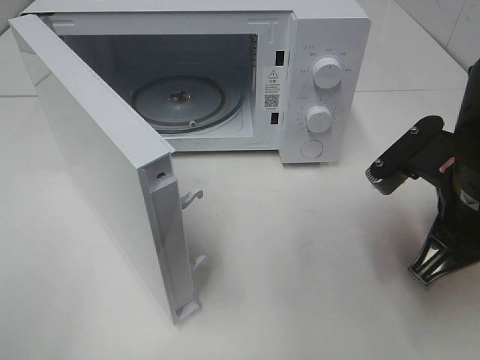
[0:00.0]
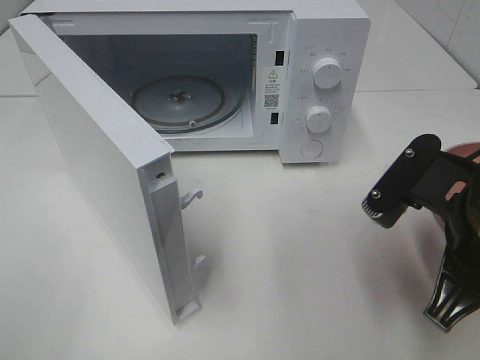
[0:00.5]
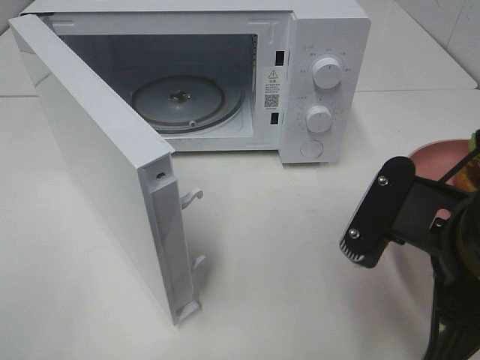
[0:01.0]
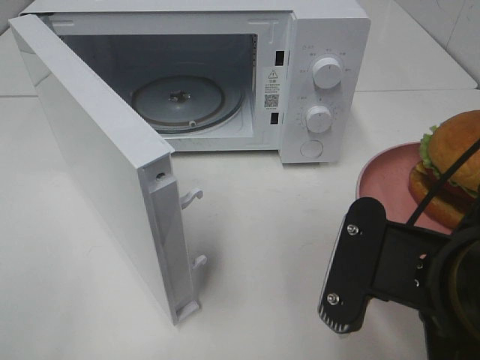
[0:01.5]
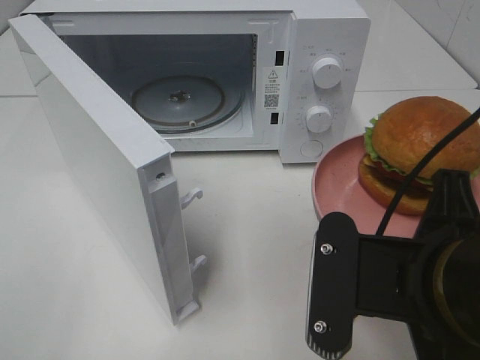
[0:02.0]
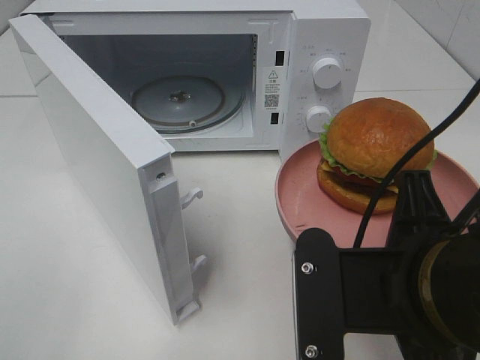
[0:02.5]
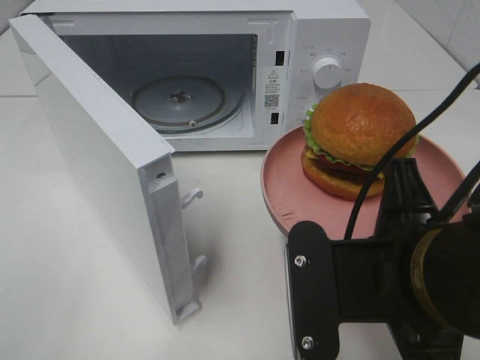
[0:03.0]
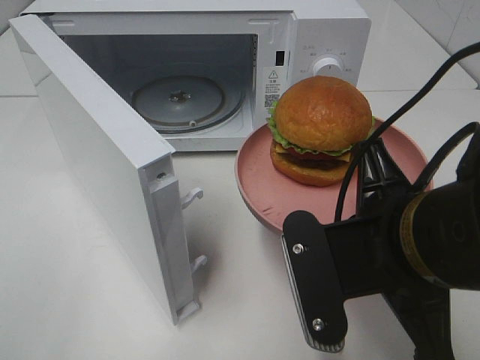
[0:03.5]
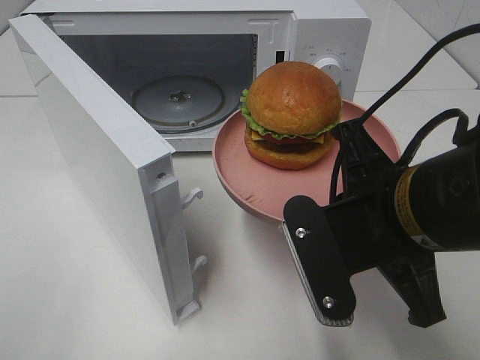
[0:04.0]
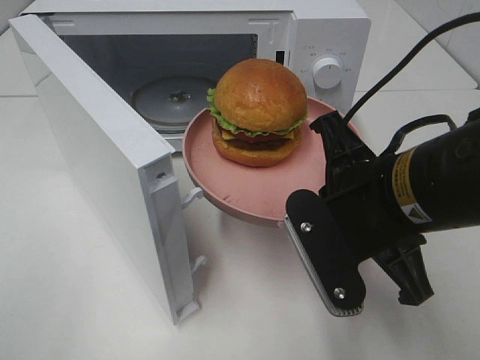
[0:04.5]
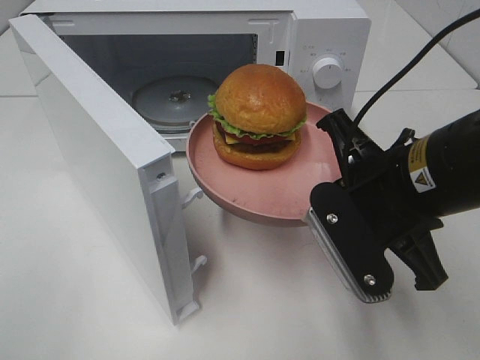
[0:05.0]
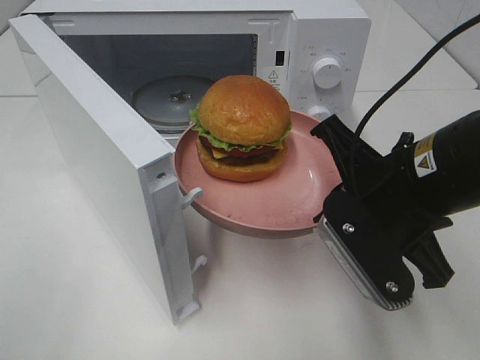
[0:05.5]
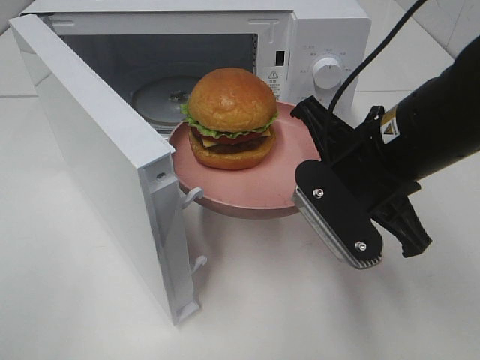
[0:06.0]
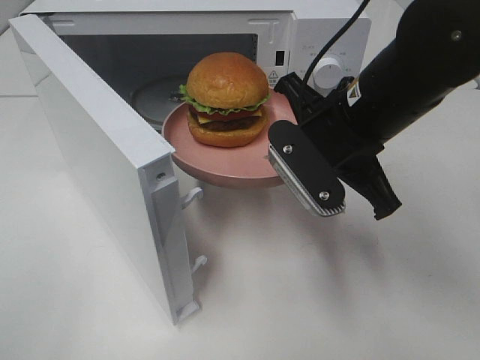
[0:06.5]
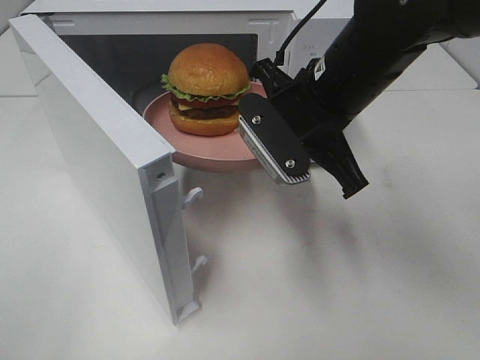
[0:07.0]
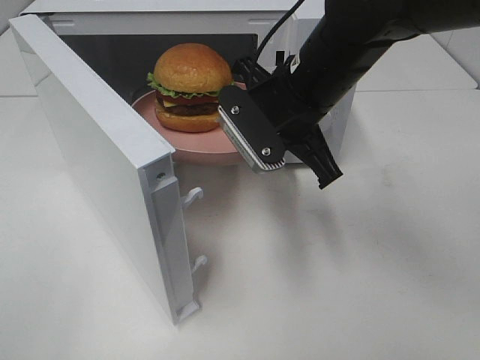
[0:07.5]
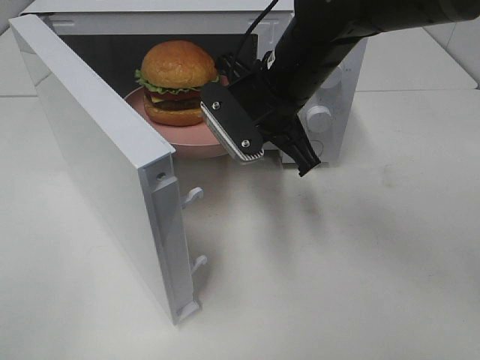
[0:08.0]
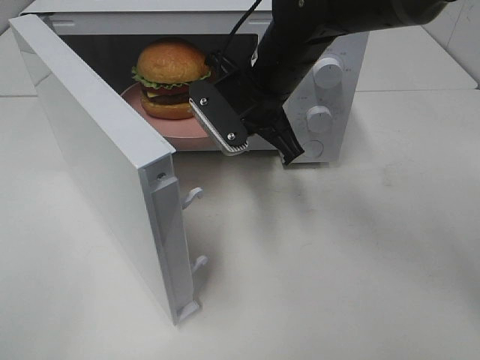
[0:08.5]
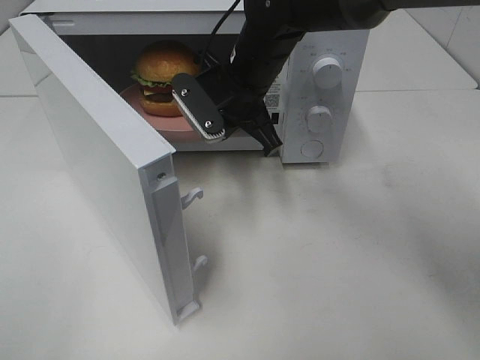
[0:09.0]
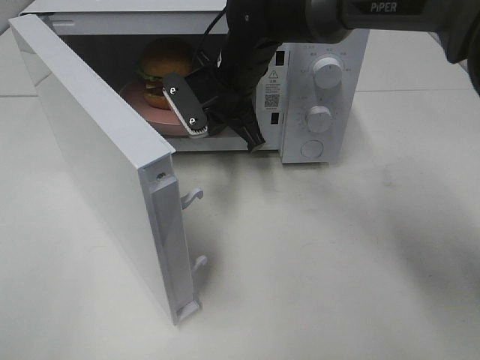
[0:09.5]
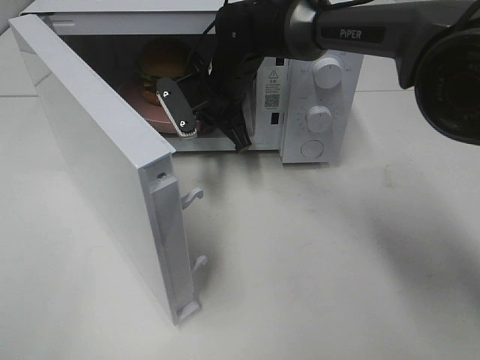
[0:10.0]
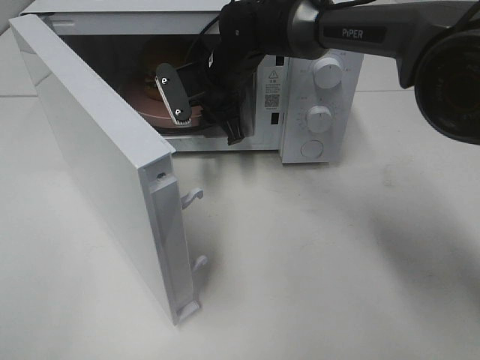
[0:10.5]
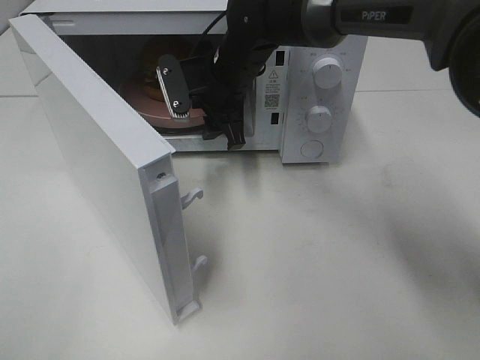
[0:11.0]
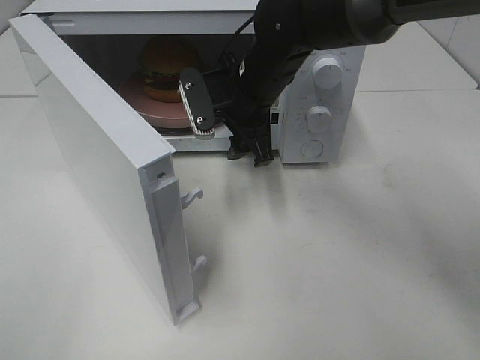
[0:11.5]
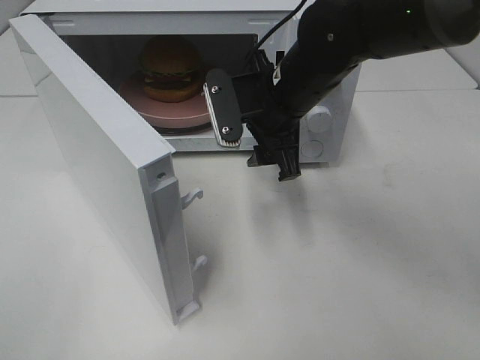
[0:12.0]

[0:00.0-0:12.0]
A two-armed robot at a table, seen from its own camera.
Task of the whole recording: Heat the burger.
Step, 0:00.0 to 0:11.0: Right hand: place the plate in the microwave.
0:00.0 to 0:02.0: The right gripper moves backward and to the left, some 10 cm.
0:02.0 to 0:04.0: The right gripper shifts approximately 5 cm forward.
0:04.0 to 0:06.0: The right gripper goes roughly 5 cm forward.
0:06.0 to 0:08.0: The right gripper heads forward and to the left, covering roughly 15 cm.
0:08.0 to 0:10.0: The right gripper goes roughly 15 cm forward, to the left and downward.
0:10.0 to 0:12.0: The right gripper heads backward and to the right, covering approximately 10 cm, and opens its fingers.

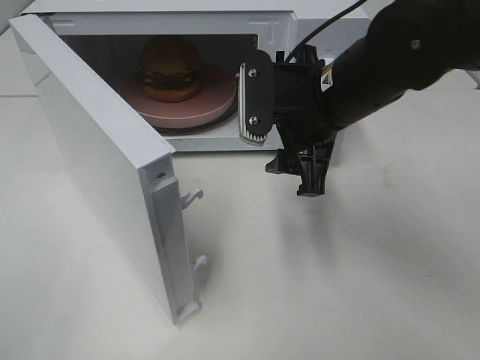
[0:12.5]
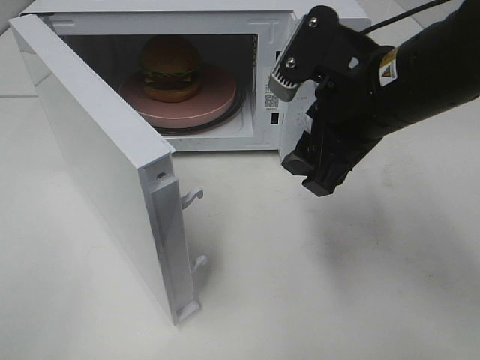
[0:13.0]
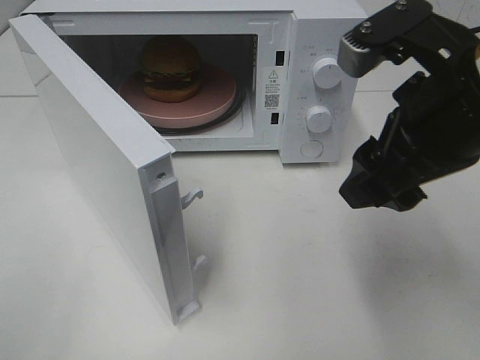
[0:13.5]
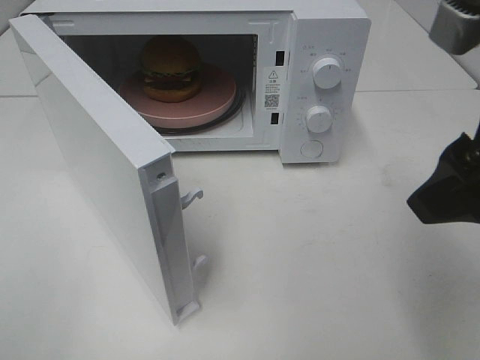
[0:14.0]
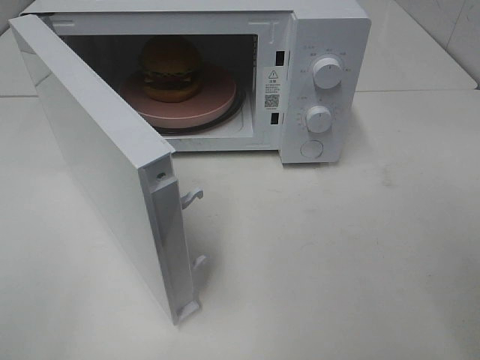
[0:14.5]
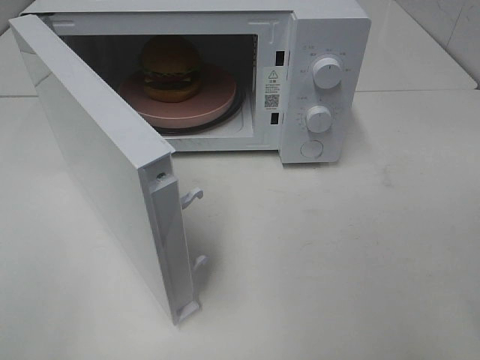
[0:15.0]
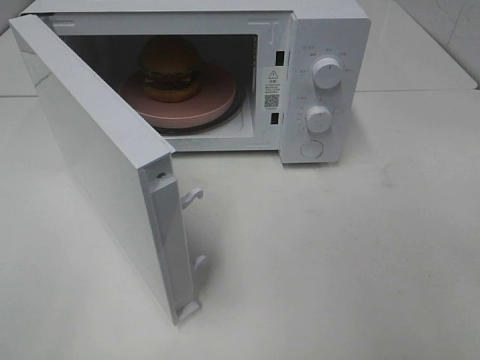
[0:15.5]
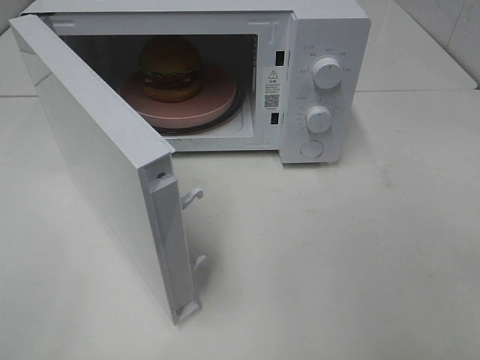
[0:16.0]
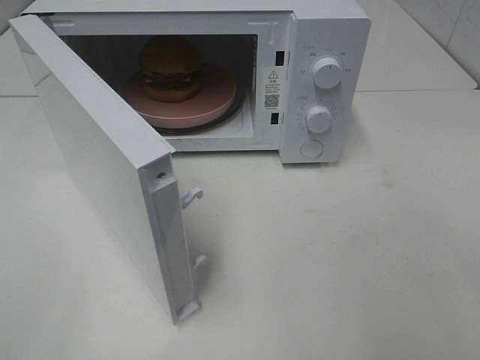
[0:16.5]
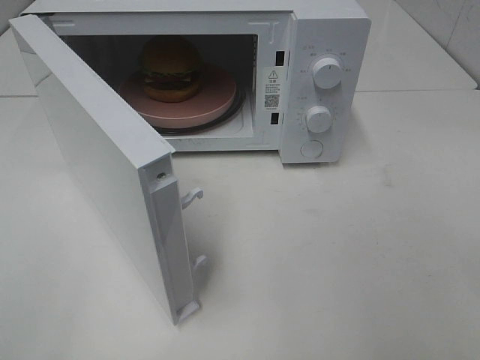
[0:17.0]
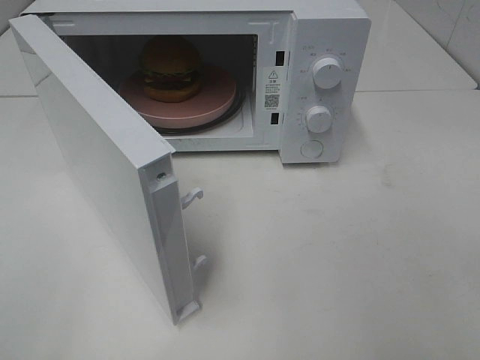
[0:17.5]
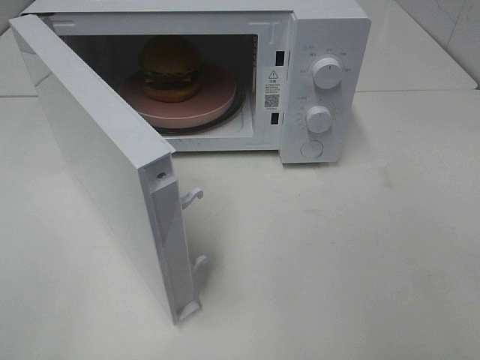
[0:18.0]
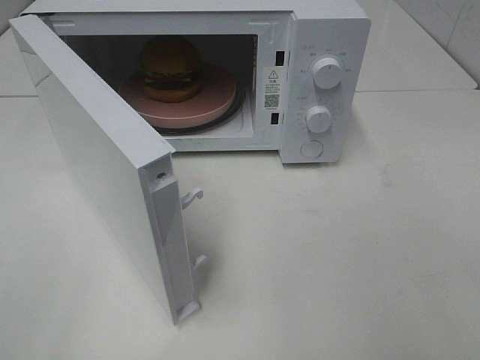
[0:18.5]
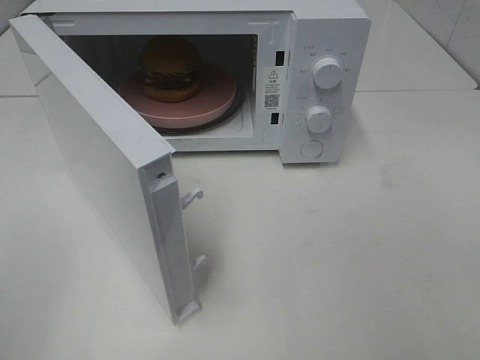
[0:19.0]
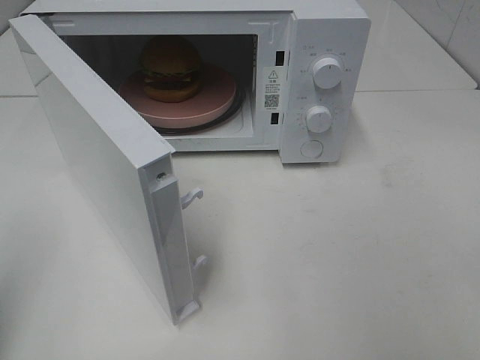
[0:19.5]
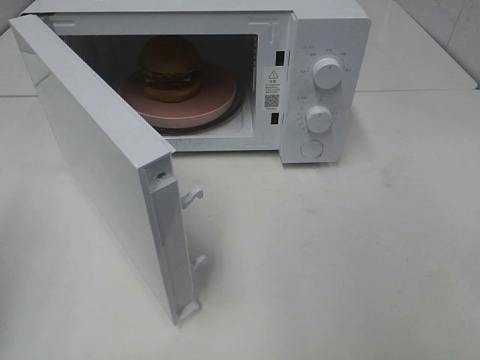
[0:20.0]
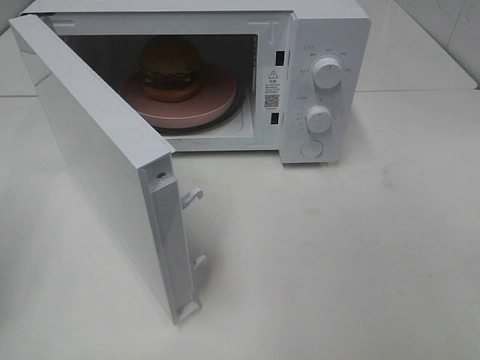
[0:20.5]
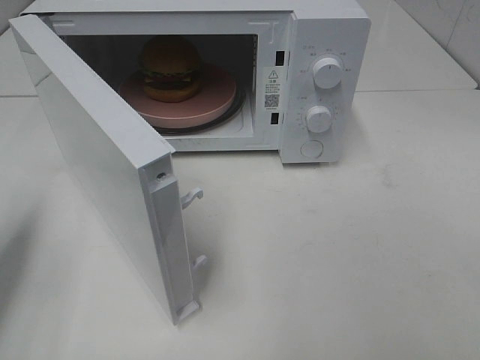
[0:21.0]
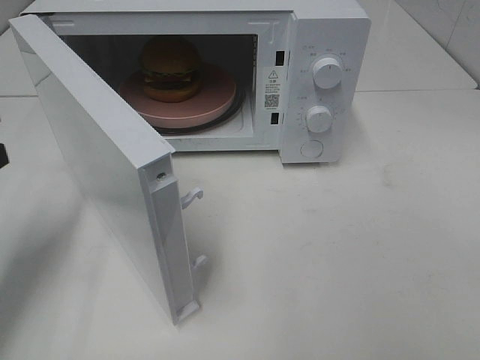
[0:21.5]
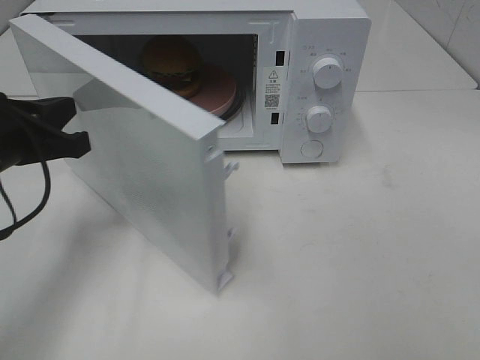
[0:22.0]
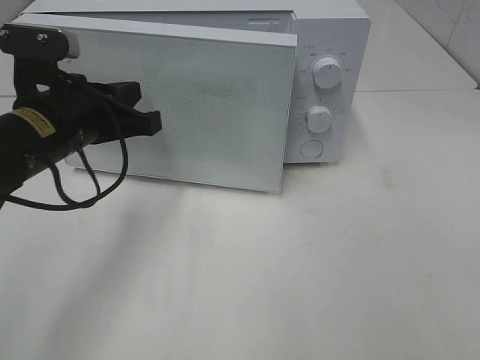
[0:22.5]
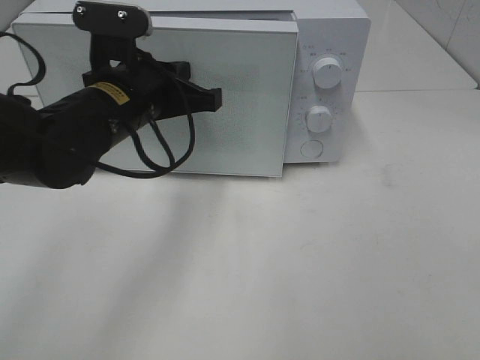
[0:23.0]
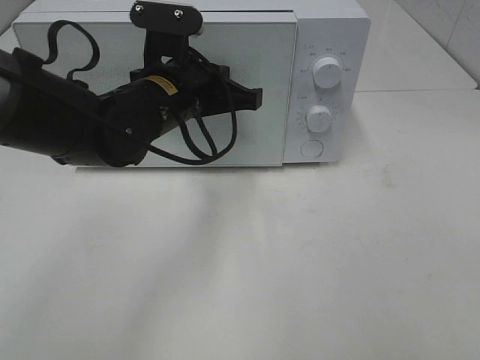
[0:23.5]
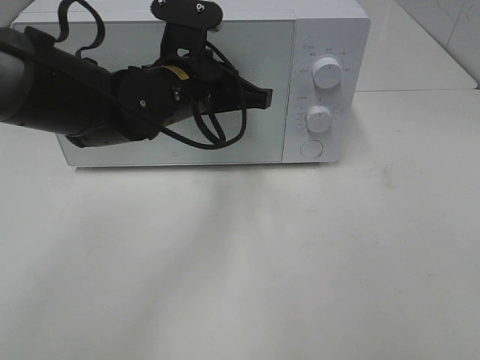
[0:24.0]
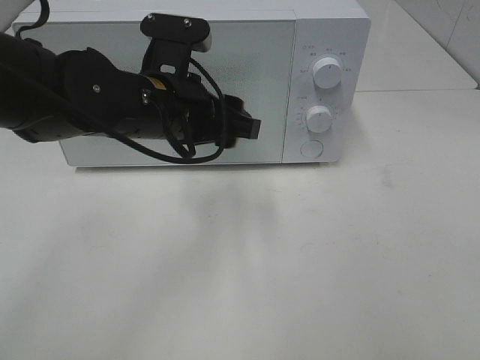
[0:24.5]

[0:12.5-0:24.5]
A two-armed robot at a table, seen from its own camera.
Task of the whole recording: Heat the burger.
Step, 0:12.5 to 0:24.5: Left hand: close the microwave door.
0:12.5 to 0:14.5: The right gripper heads backward, to the right and upward, covering some 25 cm.
0:16.5 to 0:18.5: Both grippers stay put.
0:20.5 to 0:22.5: The left gripper is displaced to the right and forward by about 20 cm.
0:22.5 to 0:24.5: The left gripper moves to the right, about 10 cm, and opens its fingers.

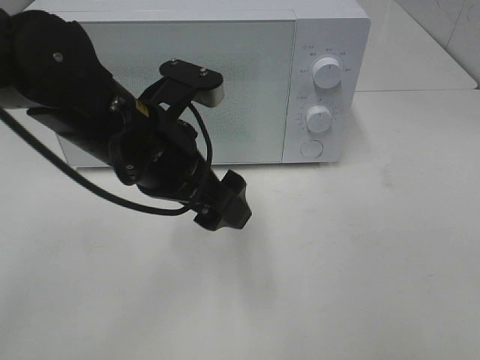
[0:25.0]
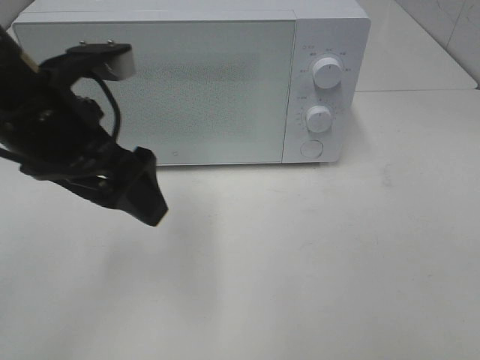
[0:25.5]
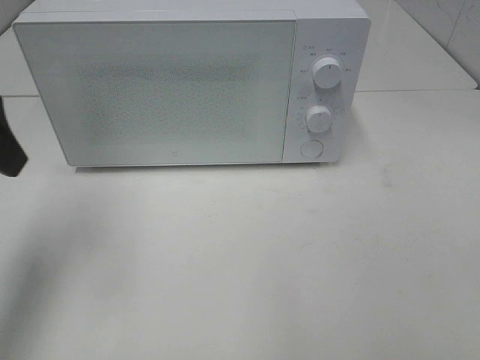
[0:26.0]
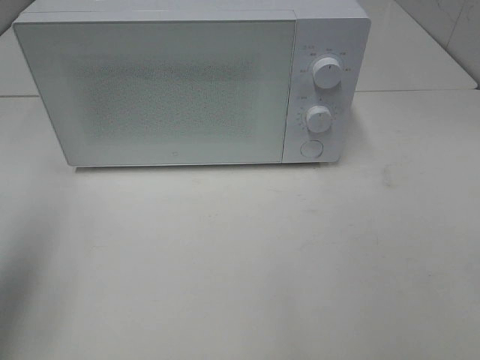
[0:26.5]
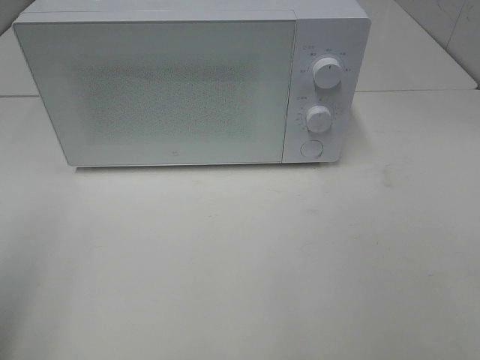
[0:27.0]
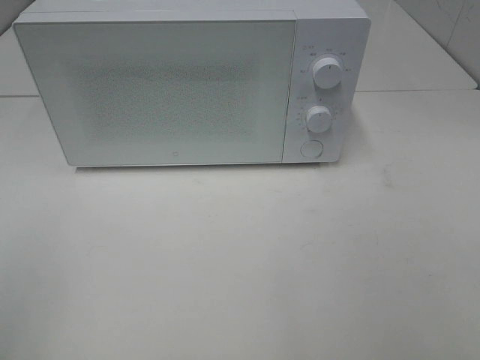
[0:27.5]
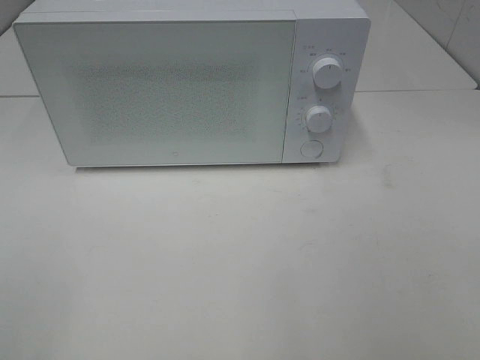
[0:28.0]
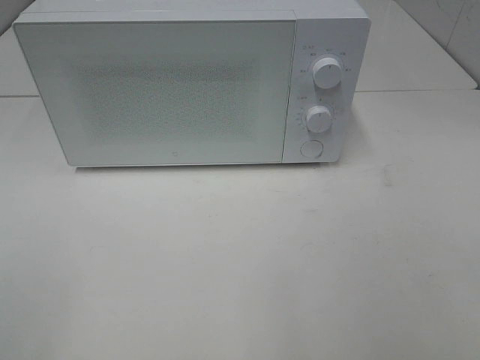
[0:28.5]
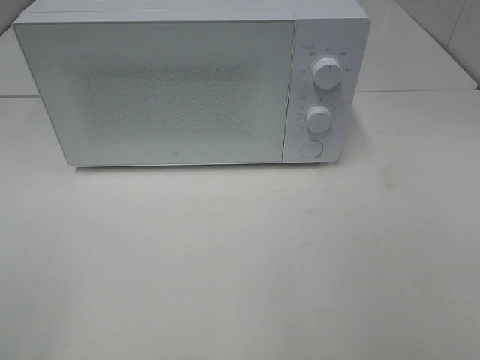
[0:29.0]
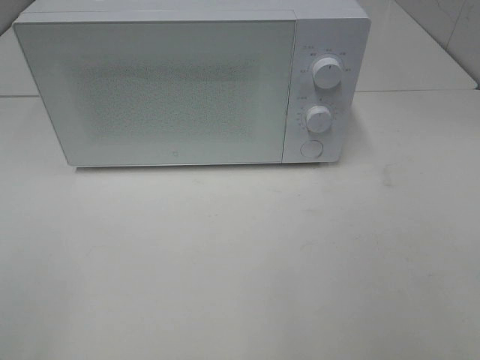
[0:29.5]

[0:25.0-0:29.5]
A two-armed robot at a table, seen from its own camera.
Task of the whole recording: Heat the burger.
0:25.0 to 0:27.0: The left gripper goes some 30 cm to the left and backward.
